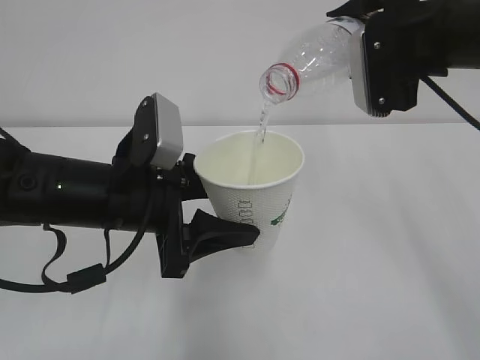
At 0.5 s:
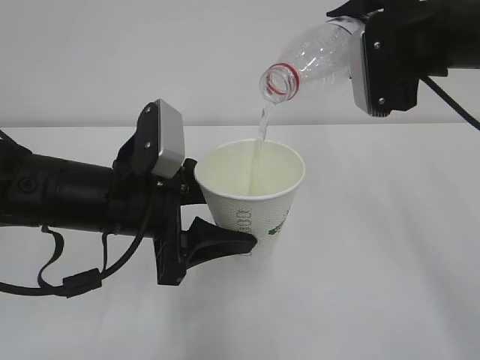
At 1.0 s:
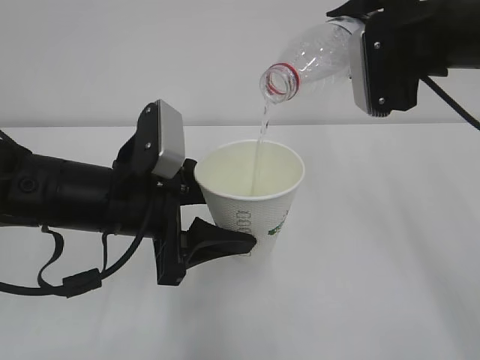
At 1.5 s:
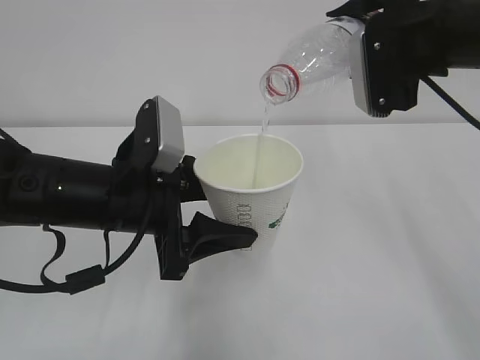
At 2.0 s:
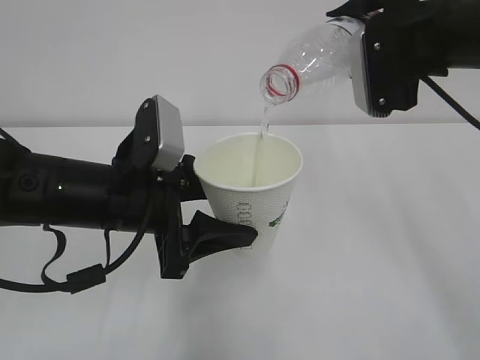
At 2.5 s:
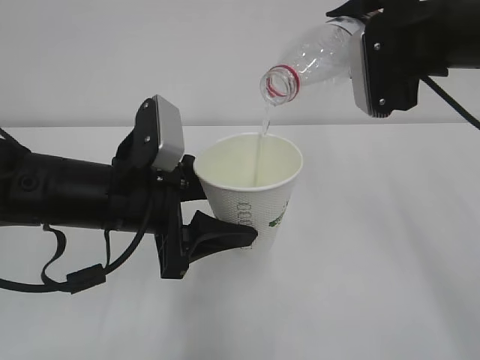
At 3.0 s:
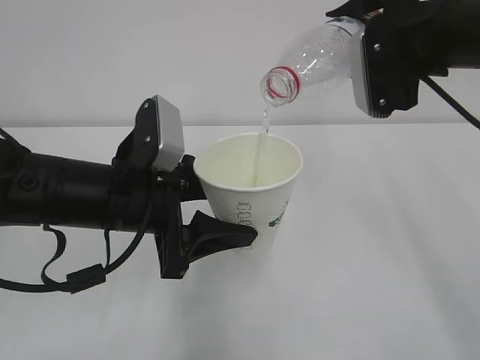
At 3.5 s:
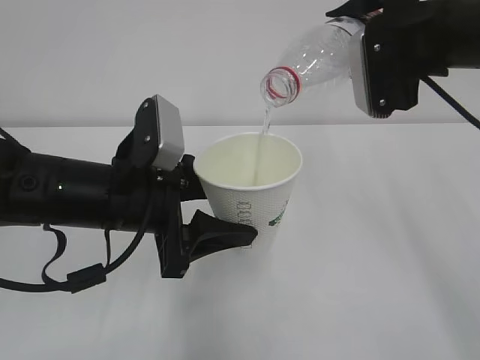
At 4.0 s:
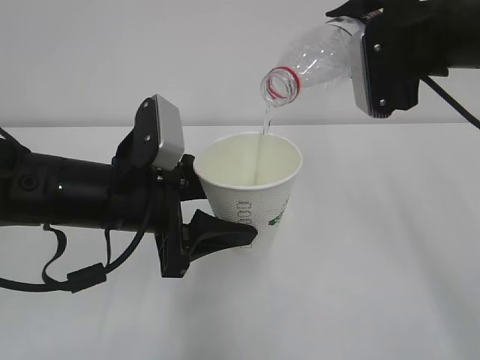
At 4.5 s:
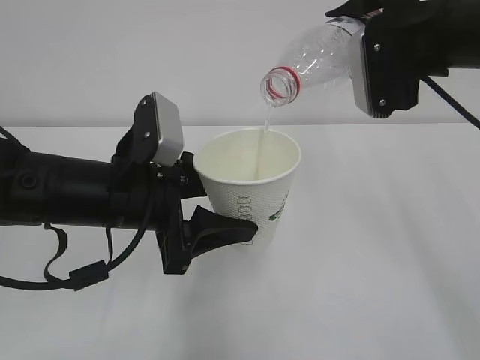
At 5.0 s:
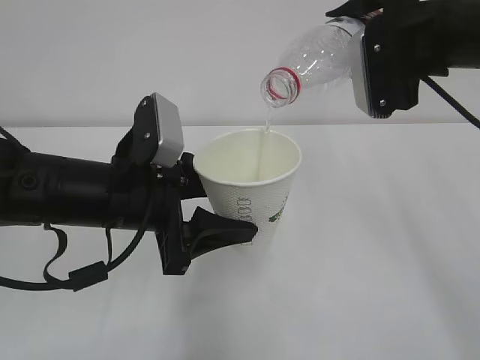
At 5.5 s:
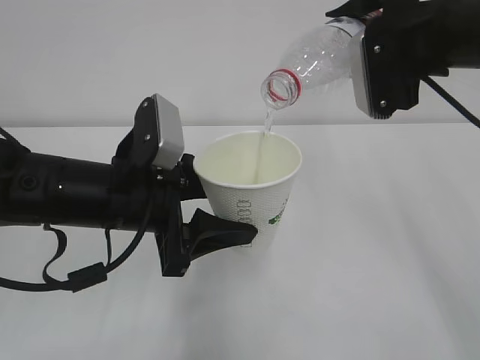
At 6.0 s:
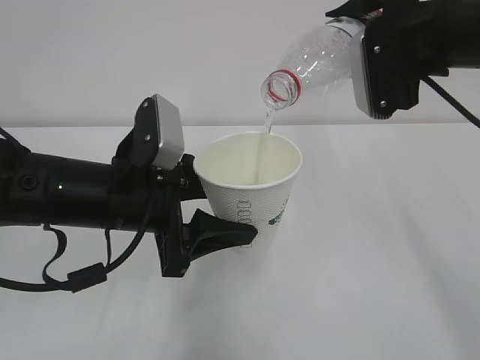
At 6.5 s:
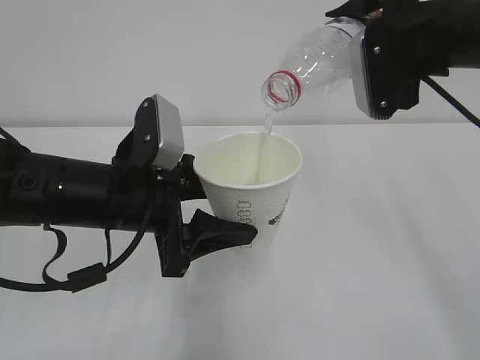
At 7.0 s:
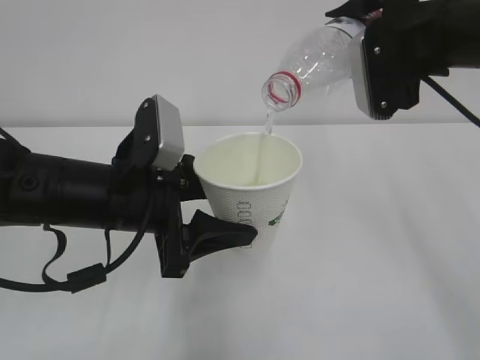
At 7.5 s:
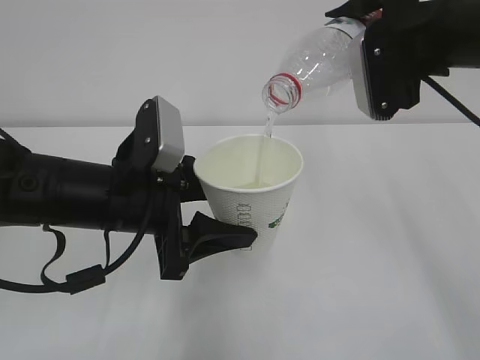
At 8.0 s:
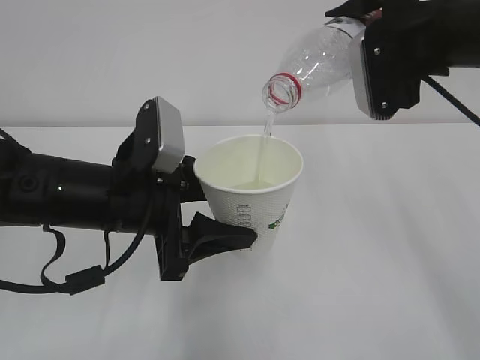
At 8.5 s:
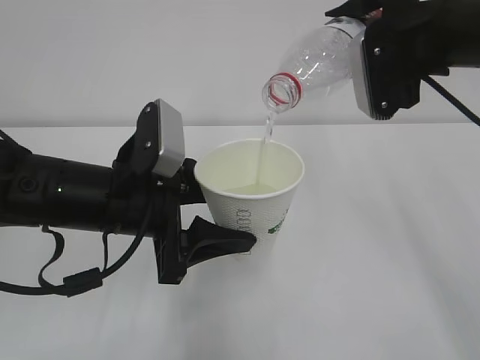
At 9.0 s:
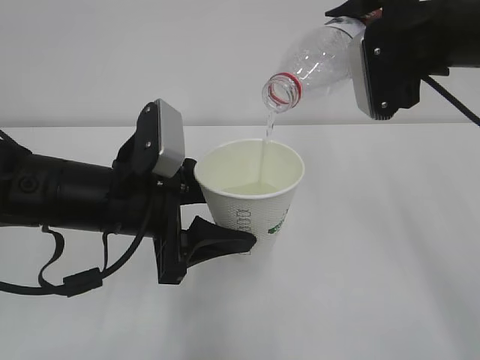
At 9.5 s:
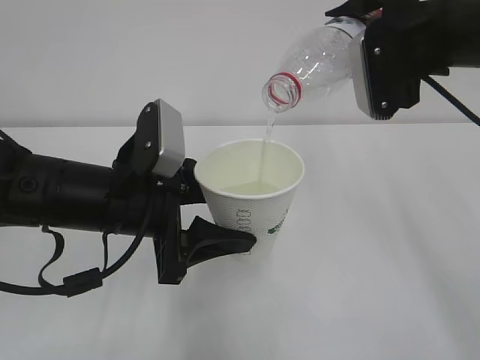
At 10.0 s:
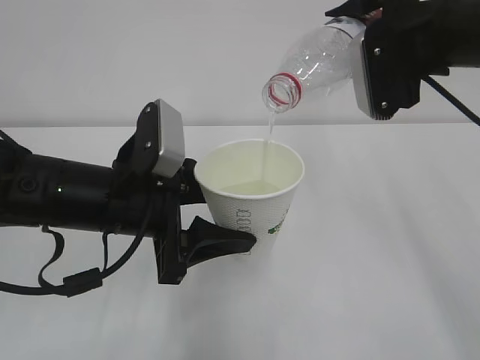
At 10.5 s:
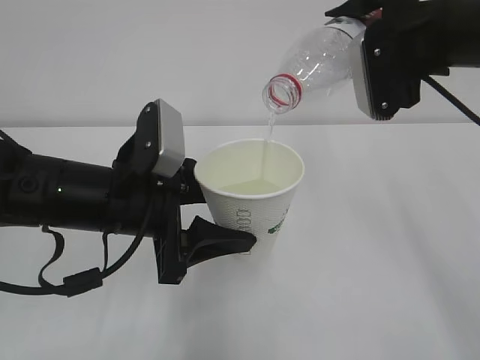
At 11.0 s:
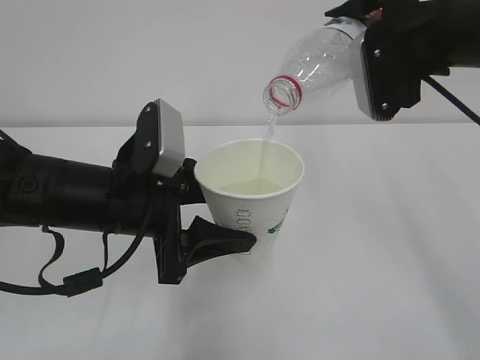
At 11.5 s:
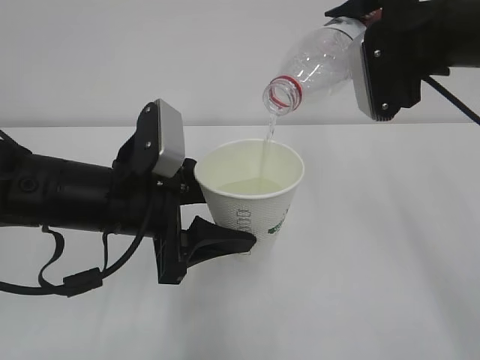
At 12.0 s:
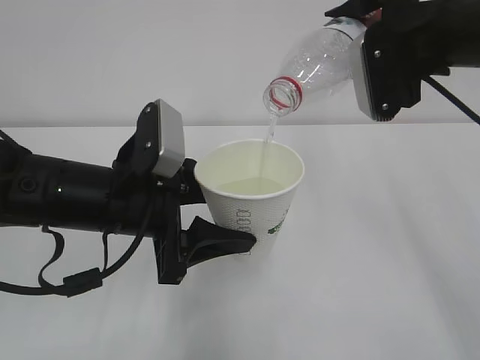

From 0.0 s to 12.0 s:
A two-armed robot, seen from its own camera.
From 0.0 s to 10.0 s: Neither gripper changes place.
From 10.0 s to 12.0 s: Neither gripper changes place.

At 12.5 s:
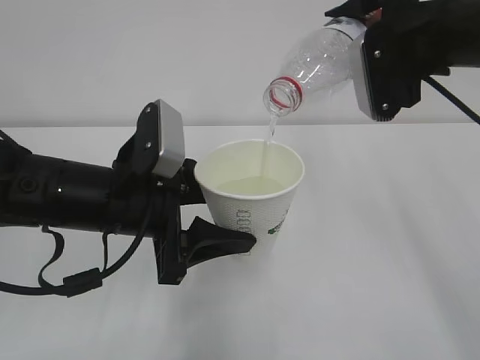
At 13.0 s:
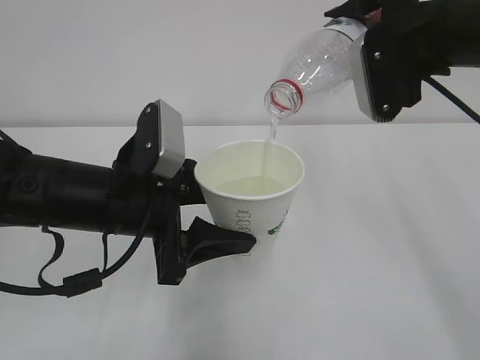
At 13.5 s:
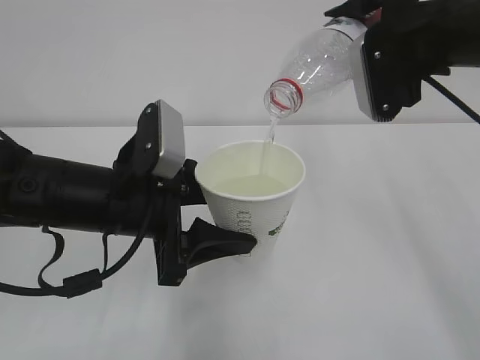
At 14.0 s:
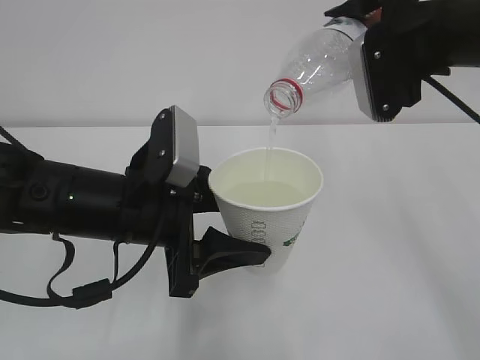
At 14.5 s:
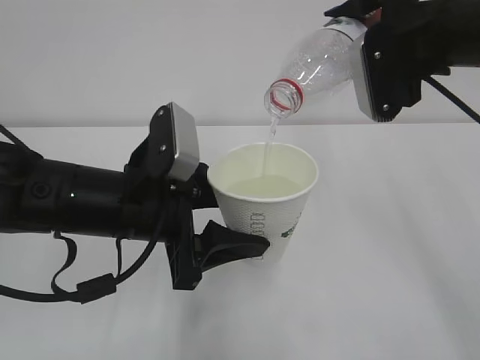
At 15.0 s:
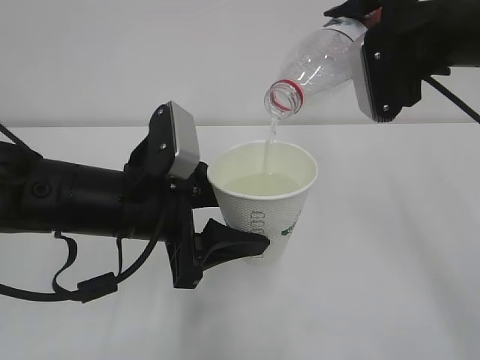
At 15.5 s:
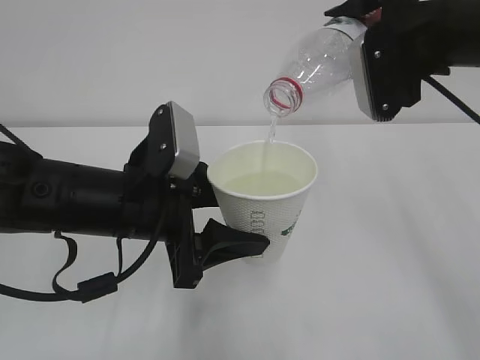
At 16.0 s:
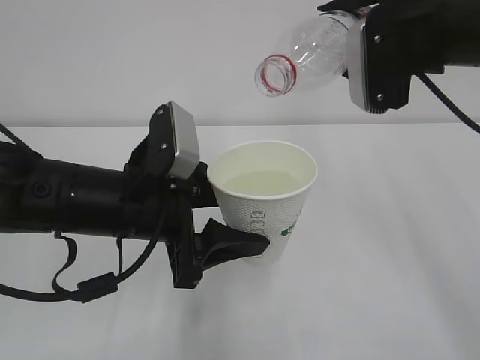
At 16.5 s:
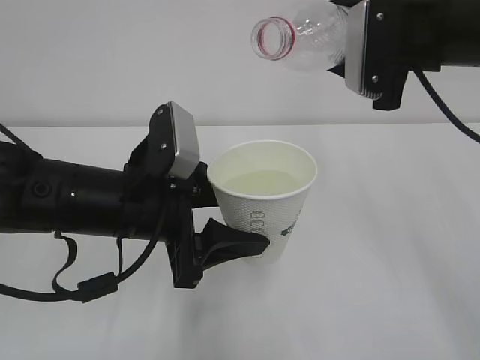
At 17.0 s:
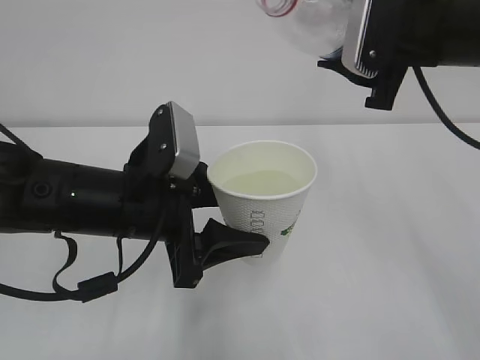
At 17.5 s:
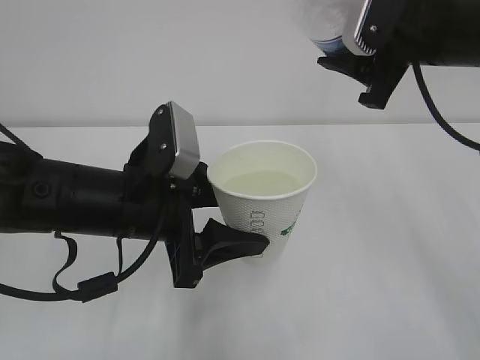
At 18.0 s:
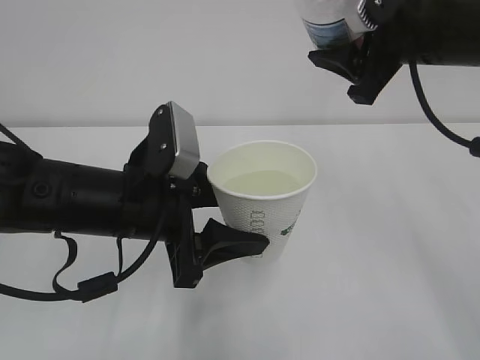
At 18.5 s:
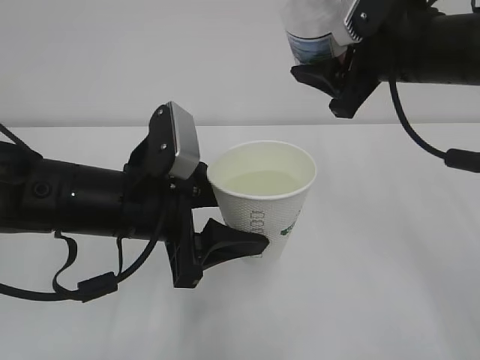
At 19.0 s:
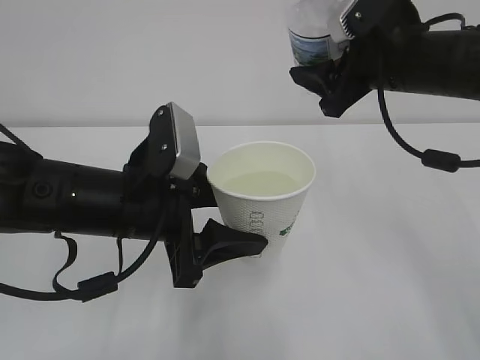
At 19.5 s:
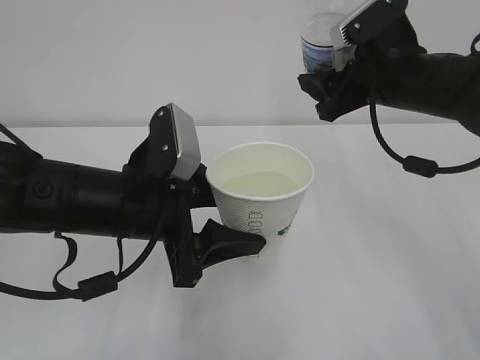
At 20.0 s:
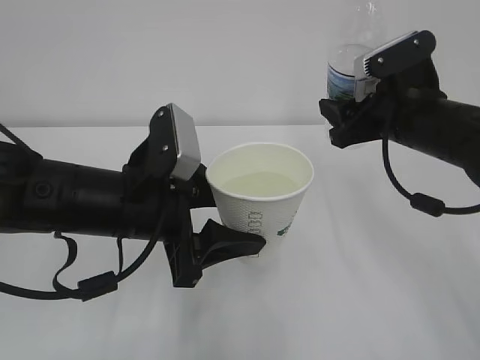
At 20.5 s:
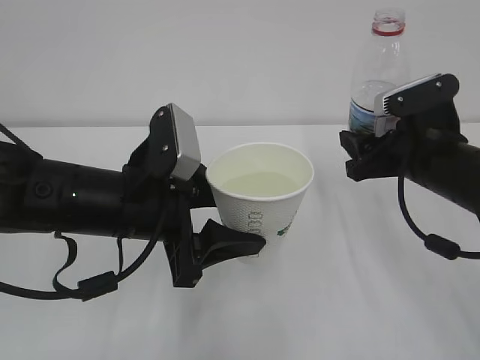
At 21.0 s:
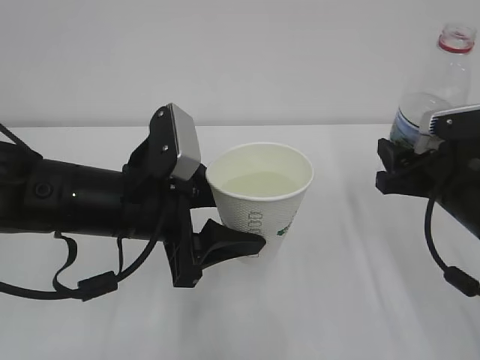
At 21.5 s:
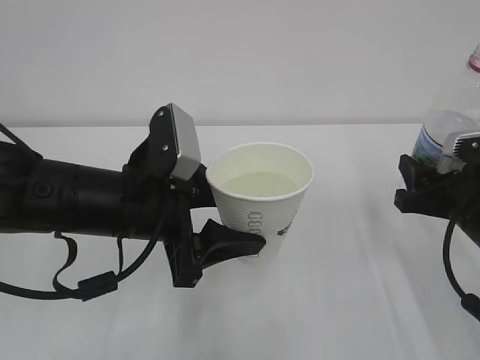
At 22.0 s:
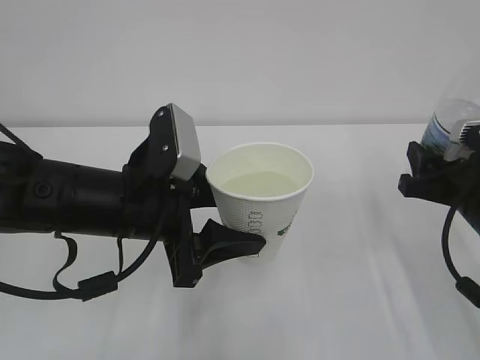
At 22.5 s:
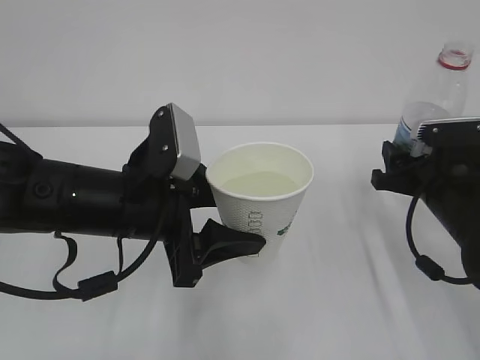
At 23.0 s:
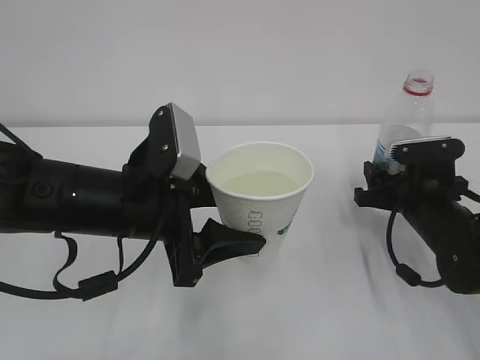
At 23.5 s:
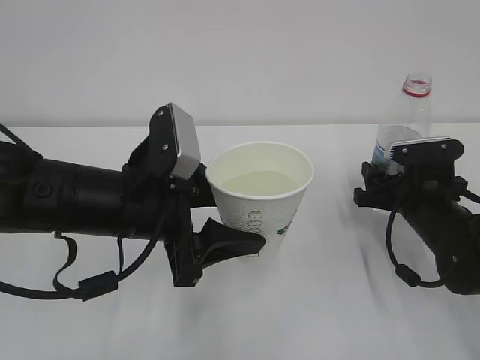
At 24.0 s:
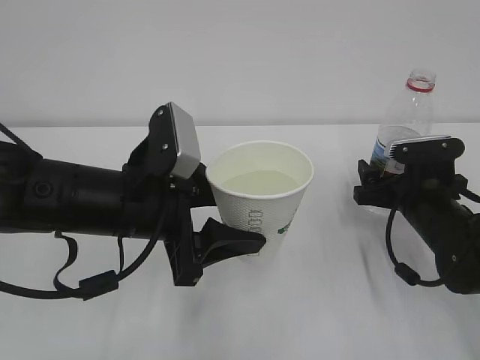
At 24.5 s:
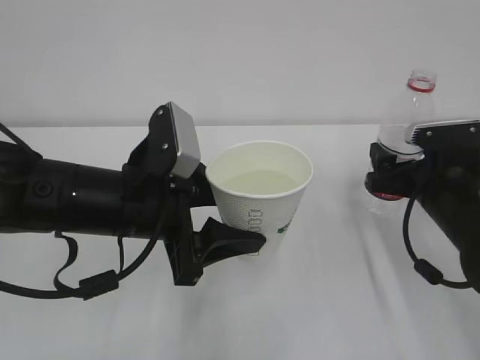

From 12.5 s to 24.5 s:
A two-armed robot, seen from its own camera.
From 12.5 s to 14.5 s: The grippers stay close to where they were, moving slightly.
From 18.5 s to 20.5 s: The right gripper heads downward, covering roughly 10 cm.
From 20.5 s to 22.5 s: The right gripper shifts by approximately 5 cm.
From 22.5 s to 24.5 s: The right gripper opens its fingers.

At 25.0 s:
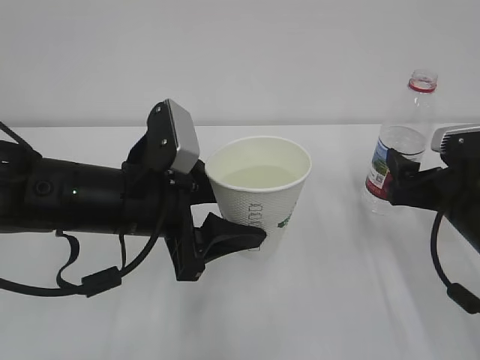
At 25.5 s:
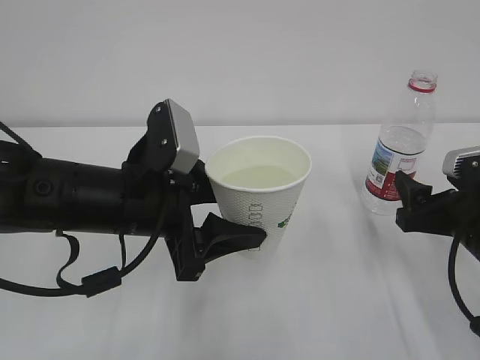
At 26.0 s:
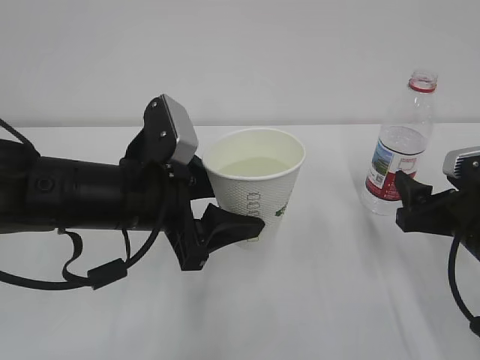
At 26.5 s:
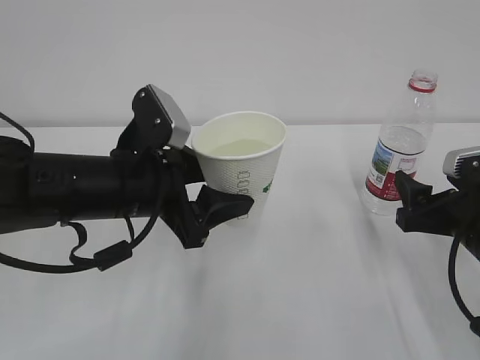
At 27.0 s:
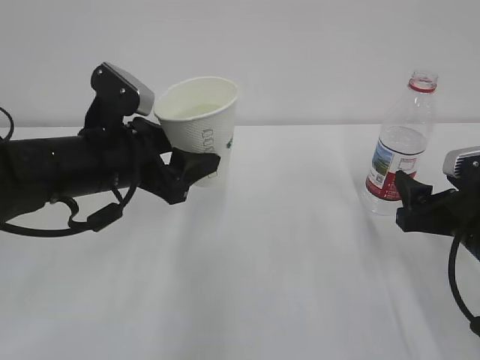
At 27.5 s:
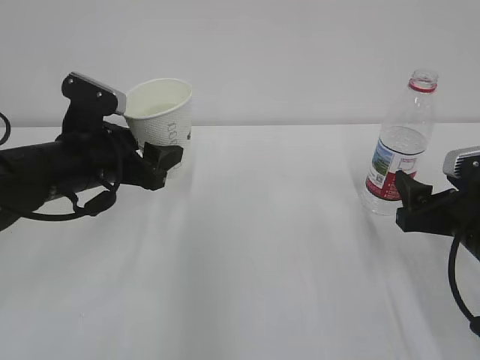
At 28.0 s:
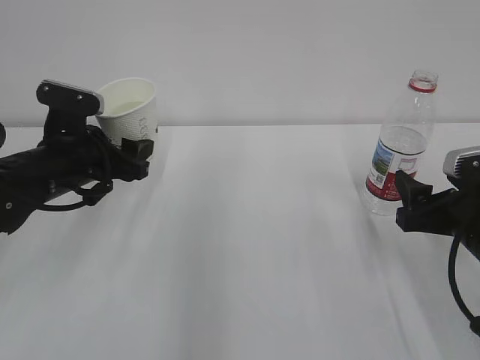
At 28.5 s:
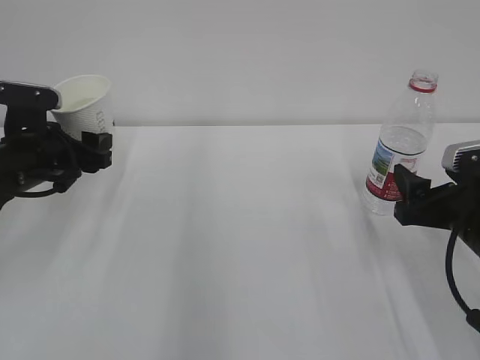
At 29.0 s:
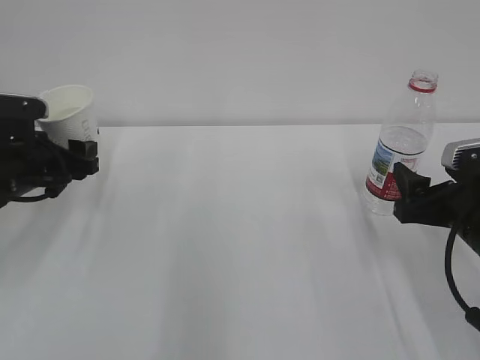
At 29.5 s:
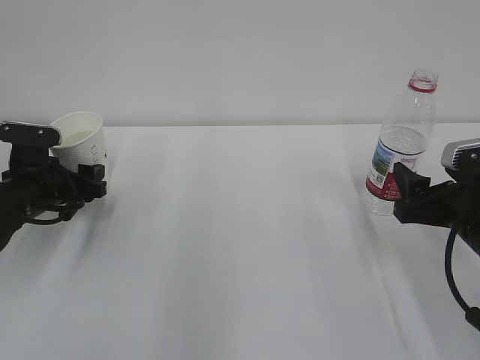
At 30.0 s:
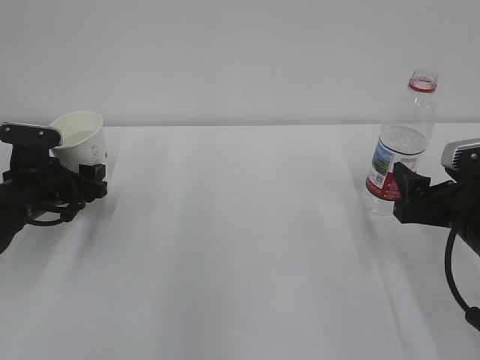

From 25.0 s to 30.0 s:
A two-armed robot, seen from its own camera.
From 25.0 s to 27.5 s: The left gripper shifts some 10 cm forward and to the left.
From 27.5 s to 30.0 s: The left gripper is displaced to the left and downward by approximately 10 cm.